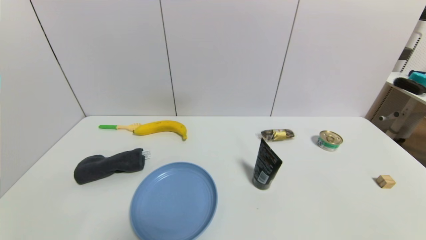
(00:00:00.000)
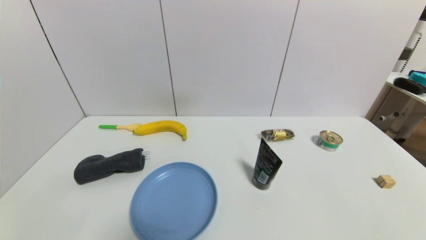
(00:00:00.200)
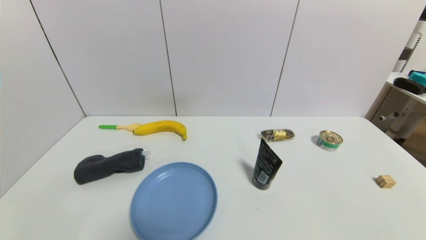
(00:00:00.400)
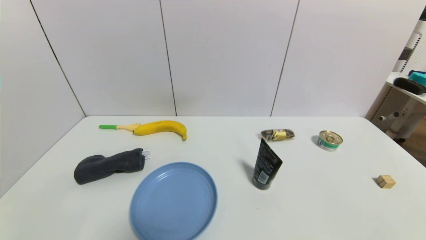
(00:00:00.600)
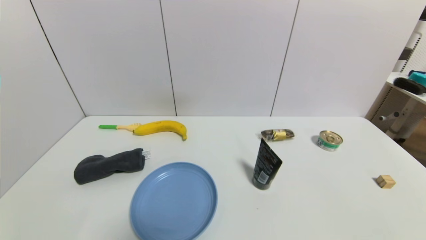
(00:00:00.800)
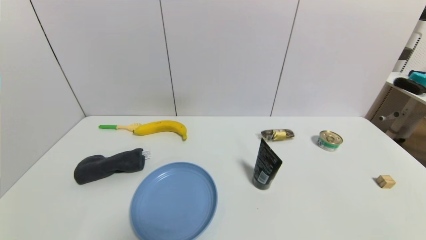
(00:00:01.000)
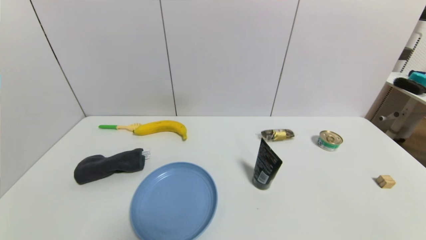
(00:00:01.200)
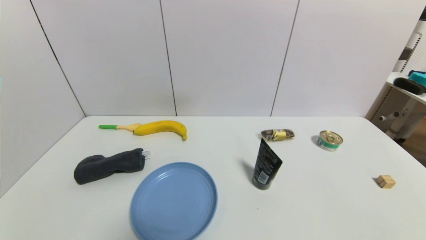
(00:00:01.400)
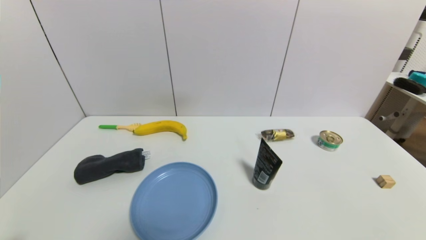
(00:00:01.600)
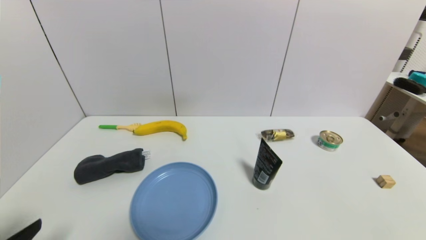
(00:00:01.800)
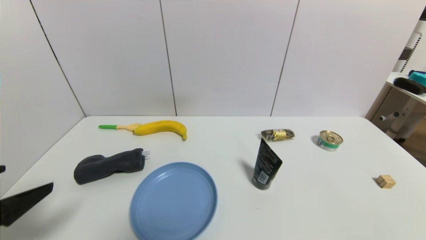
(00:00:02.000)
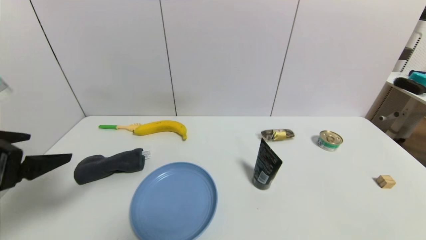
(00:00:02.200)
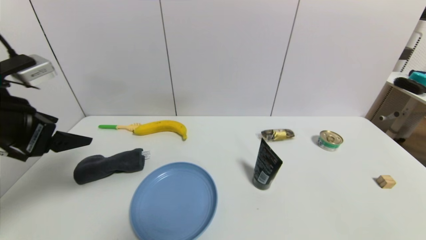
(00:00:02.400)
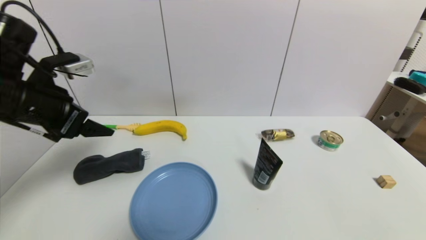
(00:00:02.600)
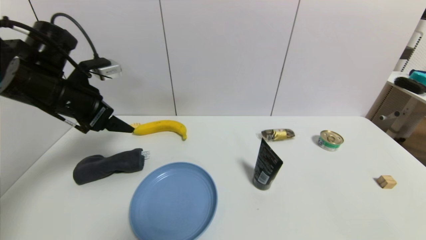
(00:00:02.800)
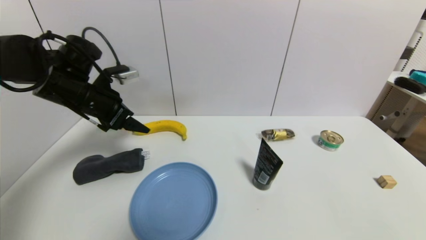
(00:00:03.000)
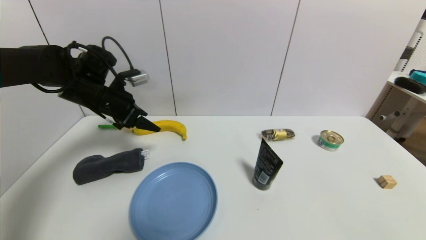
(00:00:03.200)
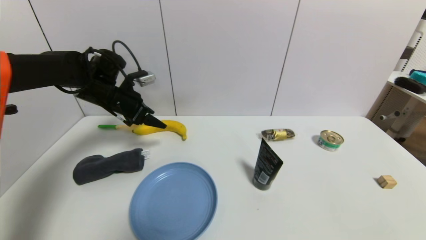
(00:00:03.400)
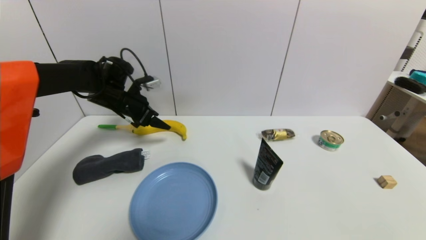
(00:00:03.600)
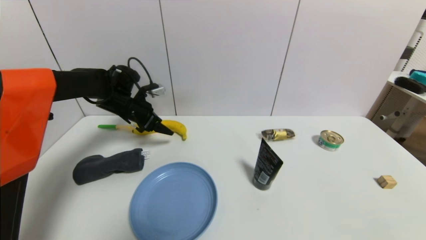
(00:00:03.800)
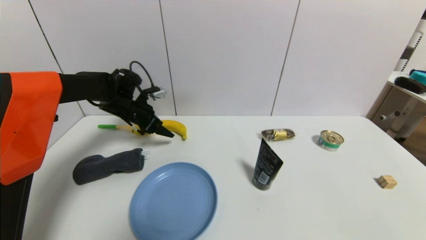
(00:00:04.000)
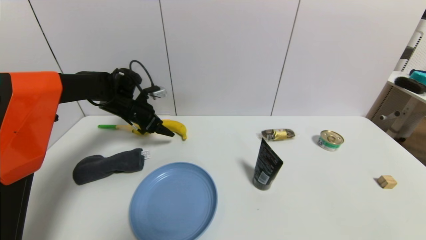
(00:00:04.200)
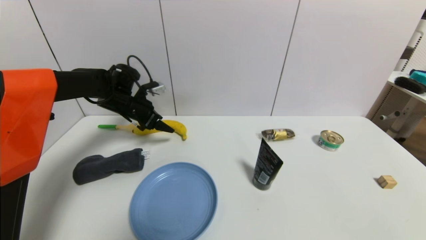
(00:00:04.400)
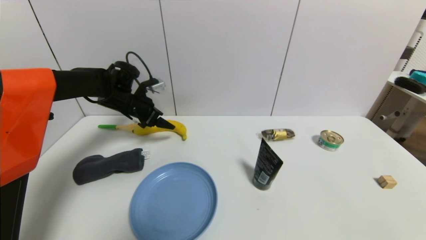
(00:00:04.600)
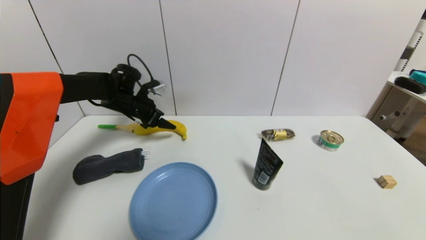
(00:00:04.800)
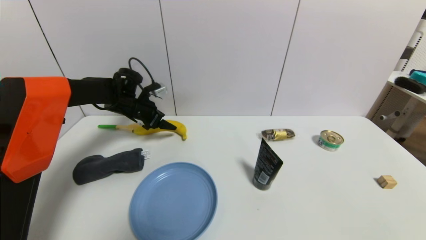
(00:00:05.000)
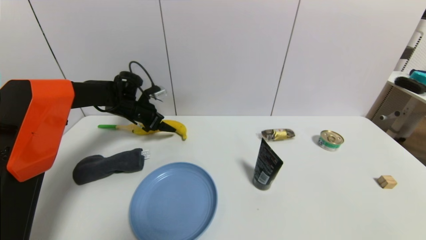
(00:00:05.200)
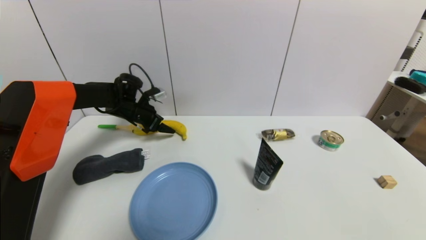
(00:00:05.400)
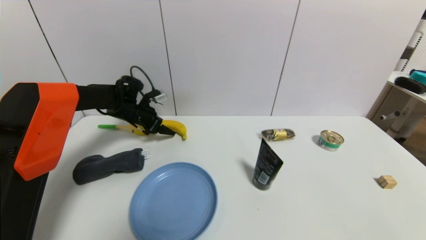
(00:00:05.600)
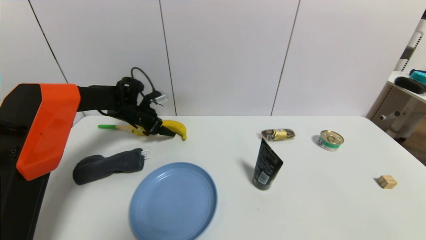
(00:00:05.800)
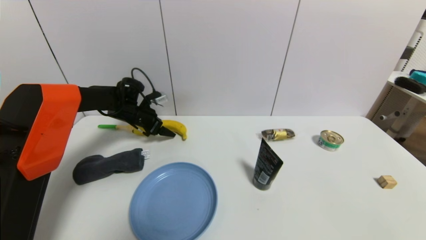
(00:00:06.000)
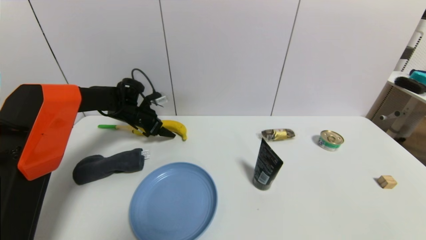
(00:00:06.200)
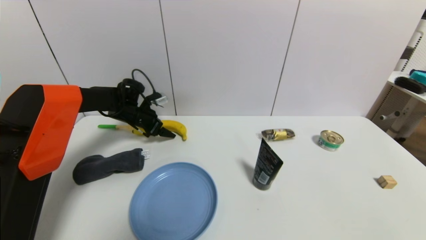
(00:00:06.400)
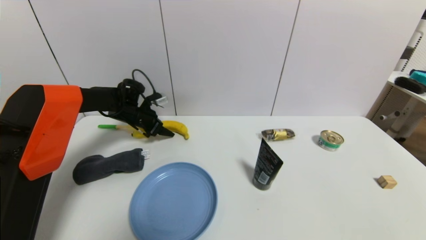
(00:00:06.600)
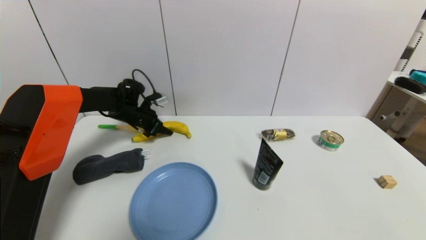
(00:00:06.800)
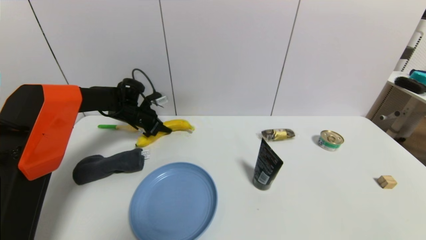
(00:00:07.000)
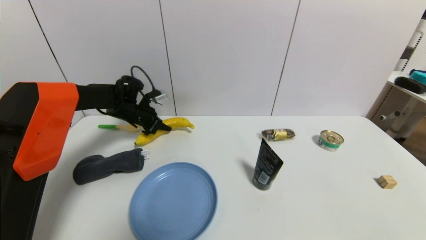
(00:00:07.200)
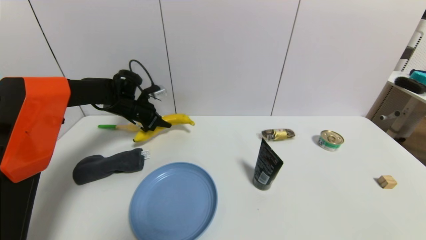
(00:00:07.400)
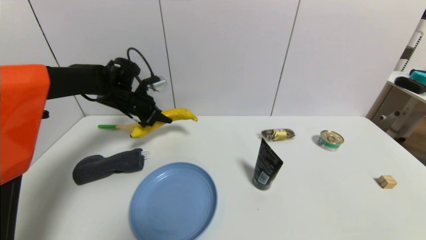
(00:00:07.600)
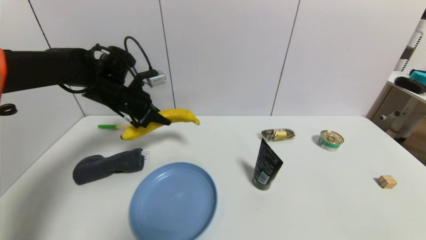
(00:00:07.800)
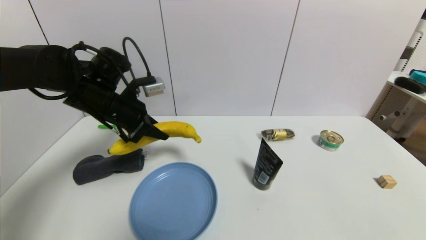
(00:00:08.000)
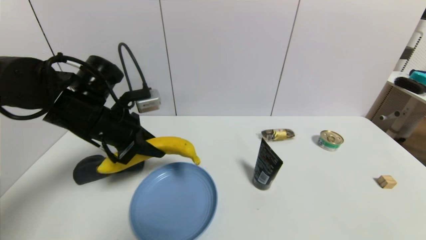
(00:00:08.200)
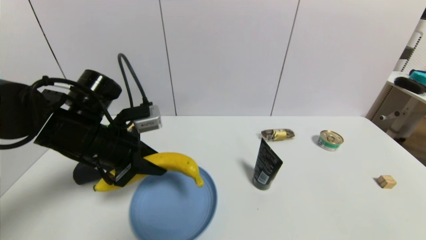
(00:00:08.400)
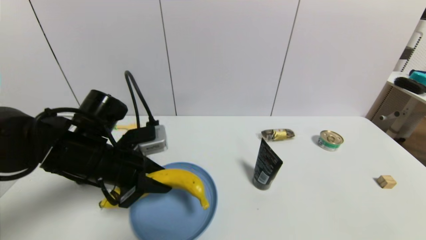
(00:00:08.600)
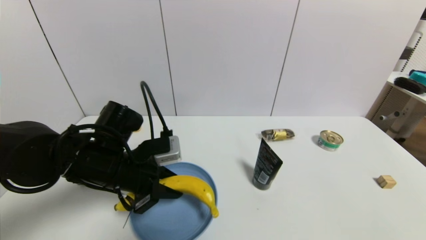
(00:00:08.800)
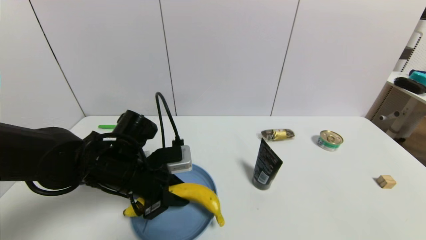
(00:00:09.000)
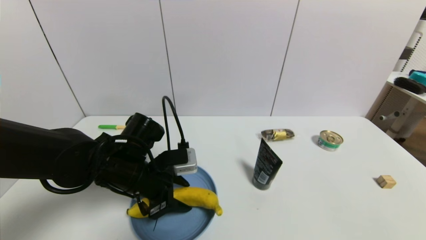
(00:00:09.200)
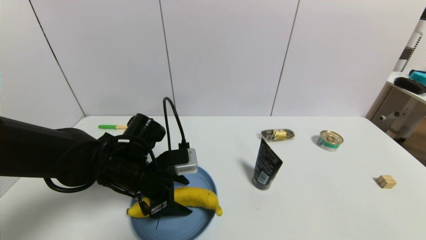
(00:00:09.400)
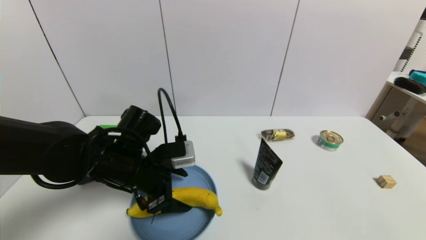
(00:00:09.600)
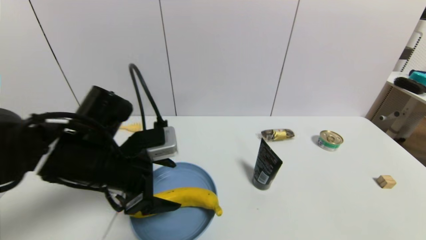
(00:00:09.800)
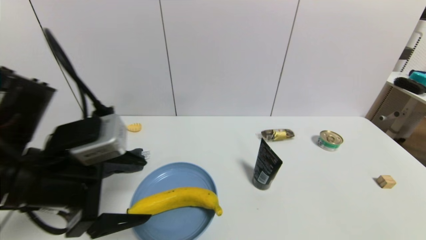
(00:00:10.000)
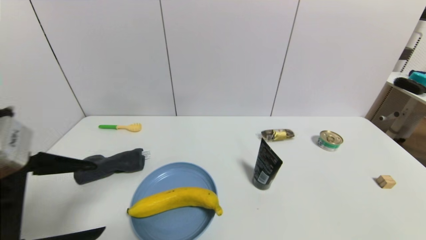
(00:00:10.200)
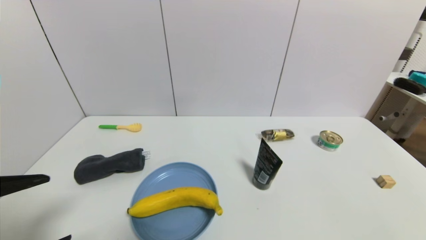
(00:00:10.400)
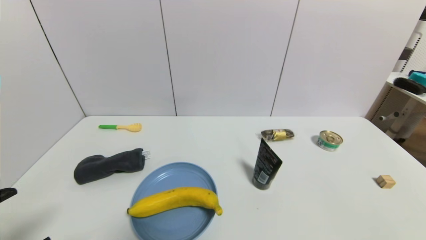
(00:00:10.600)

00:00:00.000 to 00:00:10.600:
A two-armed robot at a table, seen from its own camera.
Task of the whole recording: use a gripper to pick the target object and place on the blue plate.
Step, 00:00:00.000 to 00:00:07.000: Grasp the banana with the left gripper.
Step, 00:00:07.200 to 00:00:10.200: Place the banana on the blue plate with the left gripper.
00:00:01.600 to 00:00:03.000: The left gripper shifts some 35 cm forward.
00:00:03.000 to 00:00:04.600: The left gripper goes about 10 cm forward and downward.
00:00:04.600 to 00:00:06.000: The left gripper moves downward, approximately 5 cm.
00:00:06.000 to 00:00:07.600: The left gripper shifts some 5 cm upward, and closes.
00:00:07.600 to 00:00:09.000: The left gripper shifts about 20 cm backward.
00:00:09.000 to 00:00:10.600: The left gripper goes approximately 25 cm backward and to the left, and opens.

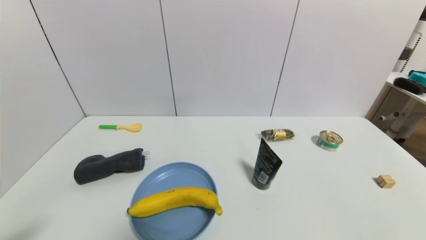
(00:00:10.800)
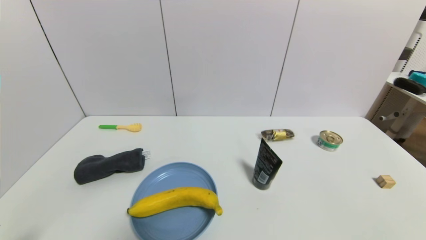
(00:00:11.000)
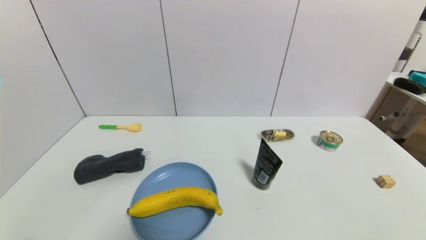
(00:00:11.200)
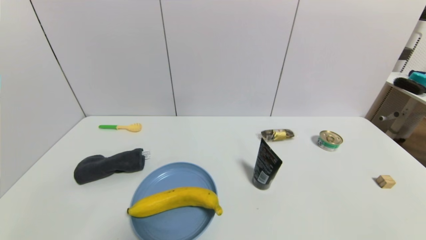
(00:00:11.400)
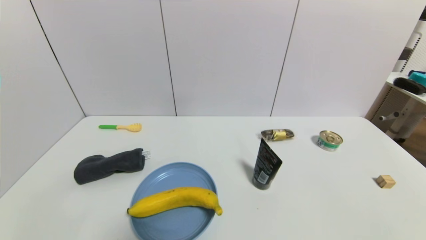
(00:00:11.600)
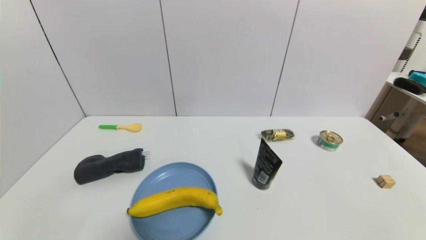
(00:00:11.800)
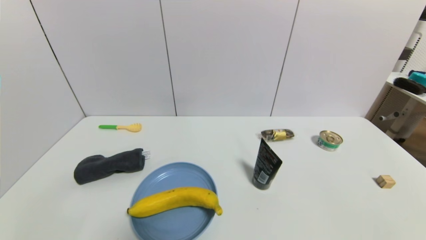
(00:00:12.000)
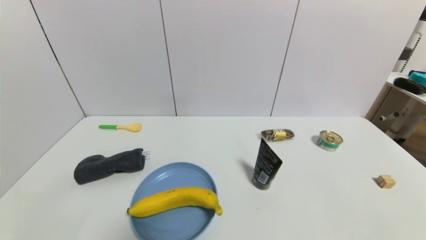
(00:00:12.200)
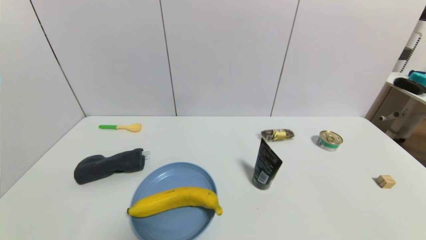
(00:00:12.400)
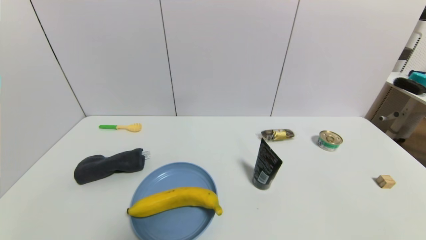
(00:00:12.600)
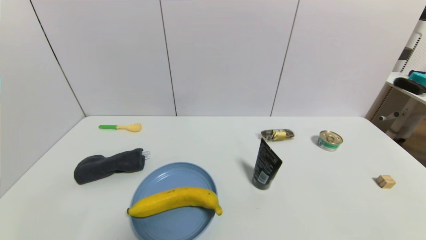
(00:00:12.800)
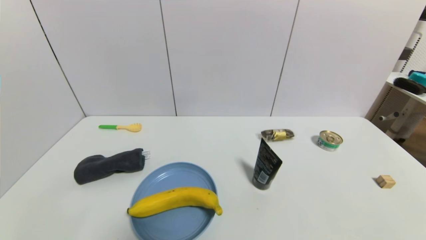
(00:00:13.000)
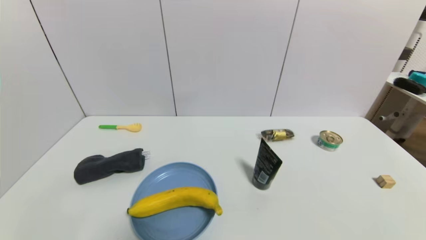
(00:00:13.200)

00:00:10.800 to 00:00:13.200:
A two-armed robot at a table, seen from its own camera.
Task of the whole recording: use a gripper to pick the target object and place on the blue plate.
00:00:12.000 to 00:00:13.200: Neither gripper changes place.
